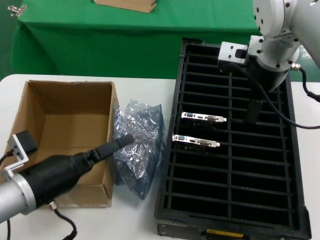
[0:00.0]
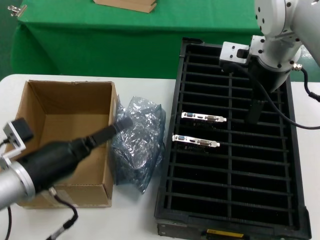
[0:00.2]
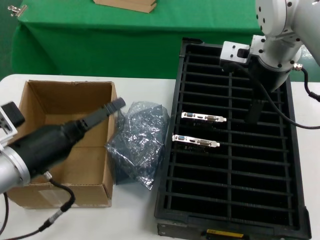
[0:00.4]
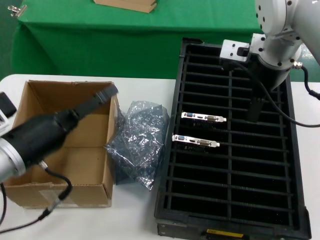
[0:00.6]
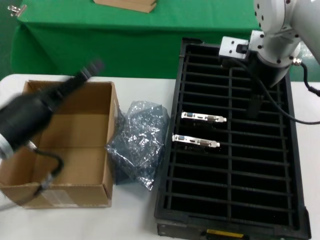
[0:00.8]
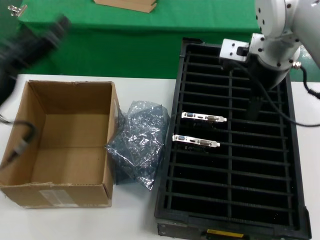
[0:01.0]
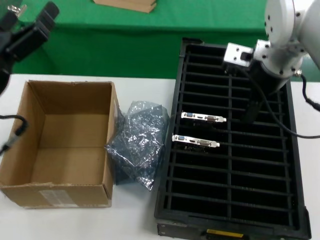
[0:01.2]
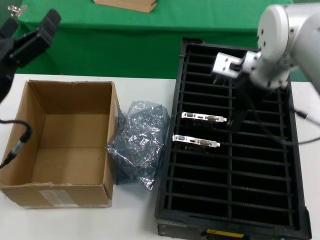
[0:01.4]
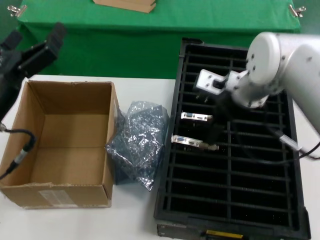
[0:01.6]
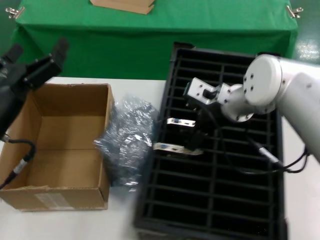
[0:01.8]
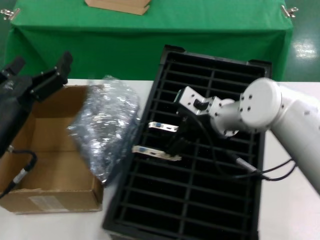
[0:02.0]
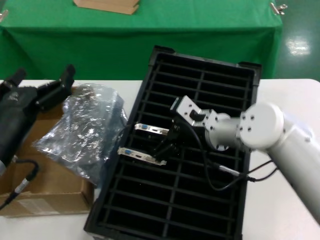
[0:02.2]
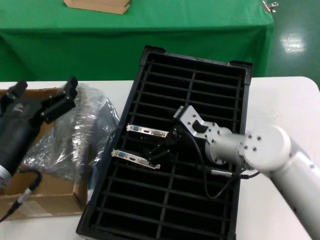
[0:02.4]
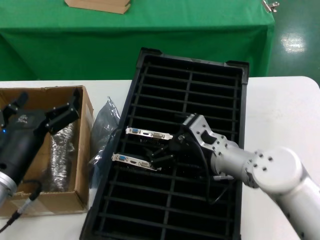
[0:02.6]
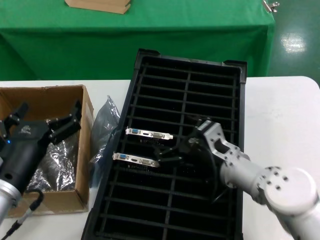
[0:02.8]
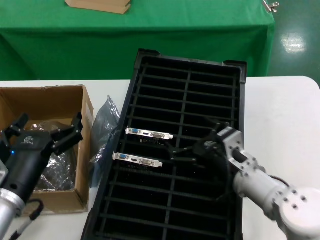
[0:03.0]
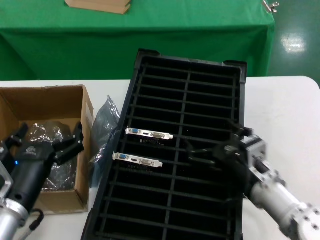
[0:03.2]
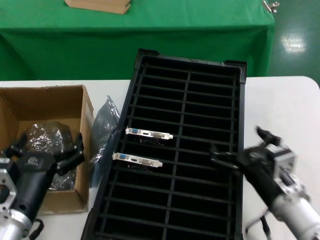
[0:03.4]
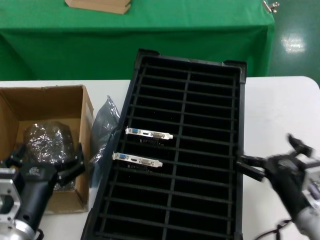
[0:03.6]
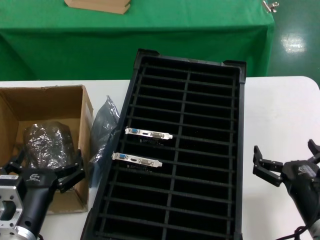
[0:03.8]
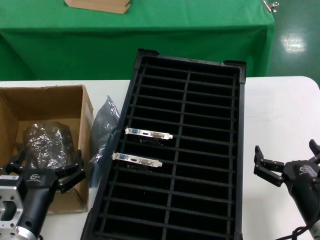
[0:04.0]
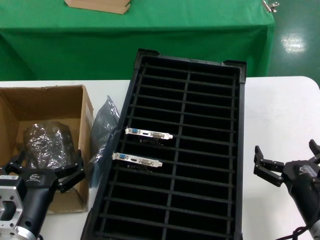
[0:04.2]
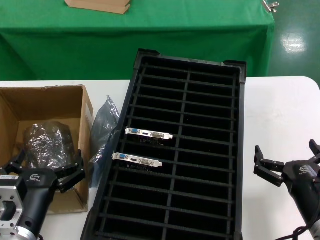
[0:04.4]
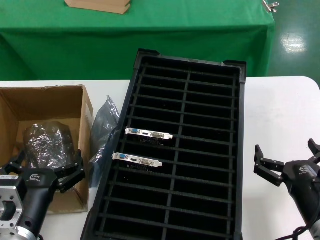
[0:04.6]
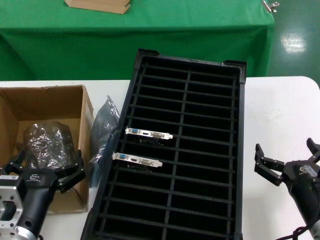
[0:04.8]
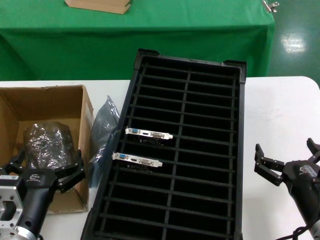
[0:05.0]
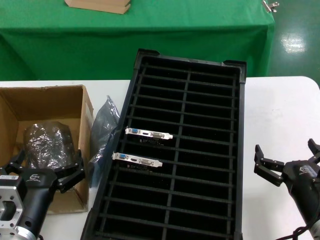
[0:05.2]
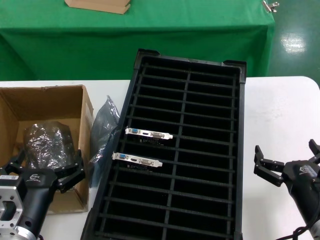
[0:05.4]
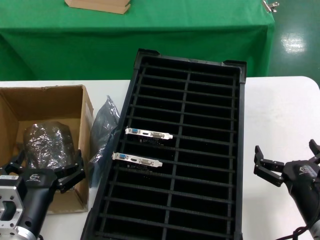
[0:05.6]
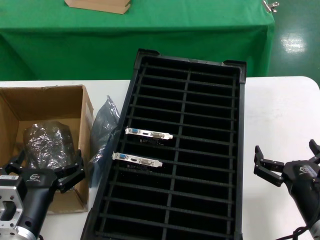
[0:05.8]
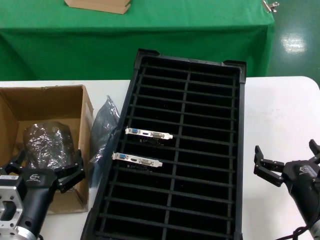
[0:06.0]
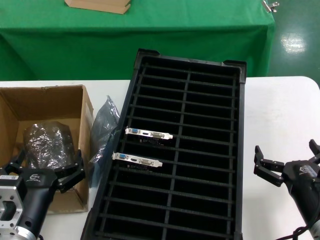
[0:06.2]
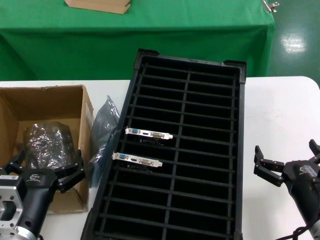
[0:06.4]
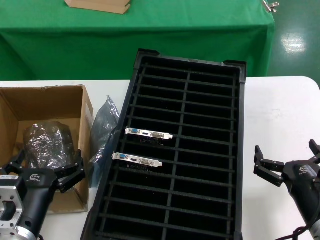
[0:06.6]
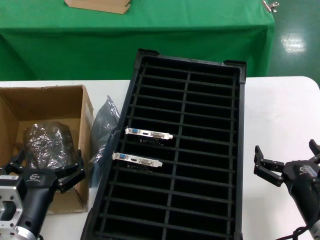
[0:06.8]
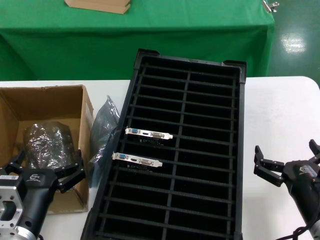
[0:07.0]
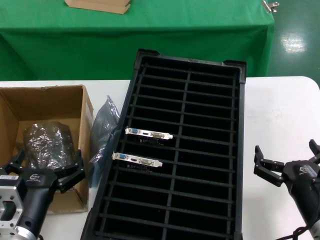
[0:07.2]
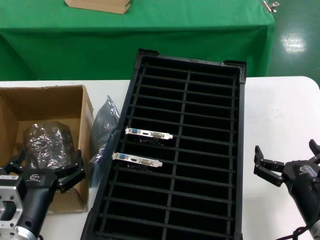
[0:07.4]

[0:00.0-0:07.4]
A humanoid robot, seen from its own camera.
Task of the whole recording: take out graphics card from box remove packaging put into black container.
0:00.0 to 0:01.4: The left hand is displaced upward by approximately 10 cm.
0:01.4 to 0:03.0: The left hand shifts roughly 15 cm downward and to the right. The right hand travels downward and backward by roughly 25 cm.
0:03.0 to 0:04.4: The right hand moves backward and to the right, some 15 cm, while the left hand shifts by some 5 cm.
0:04.4 to 0:07.4: Both hands stay put.
